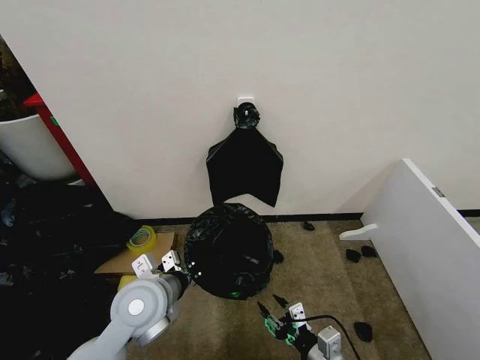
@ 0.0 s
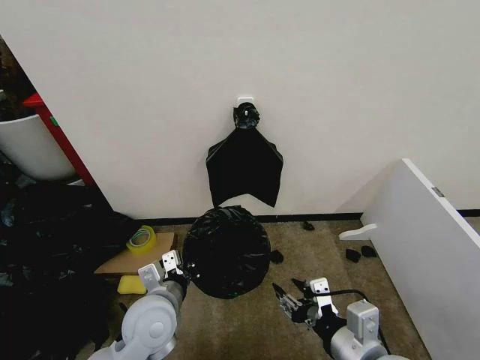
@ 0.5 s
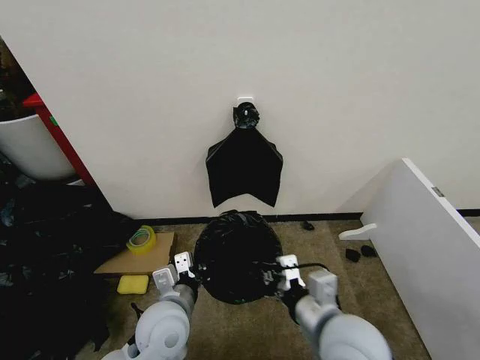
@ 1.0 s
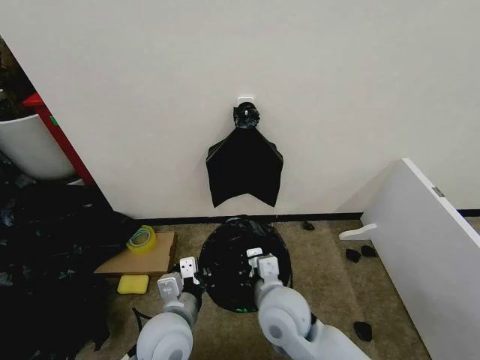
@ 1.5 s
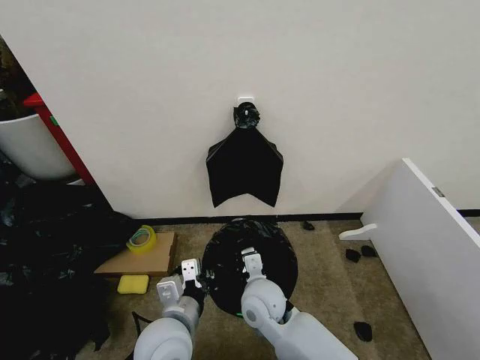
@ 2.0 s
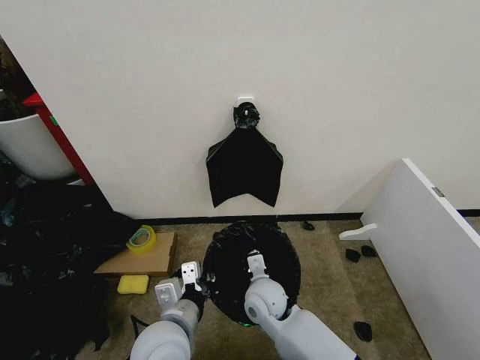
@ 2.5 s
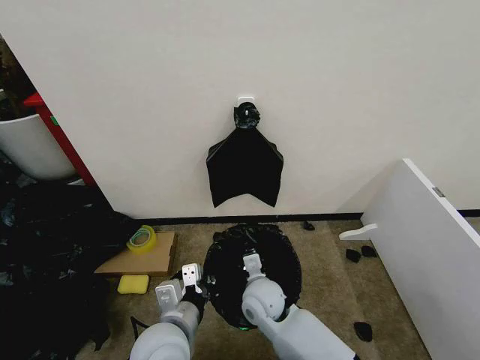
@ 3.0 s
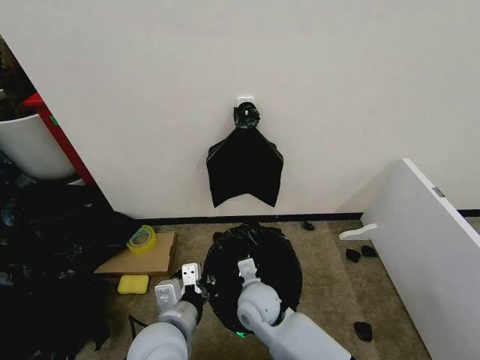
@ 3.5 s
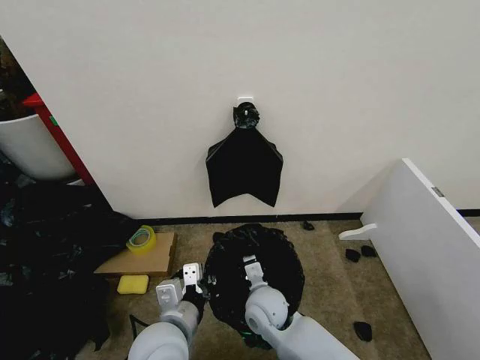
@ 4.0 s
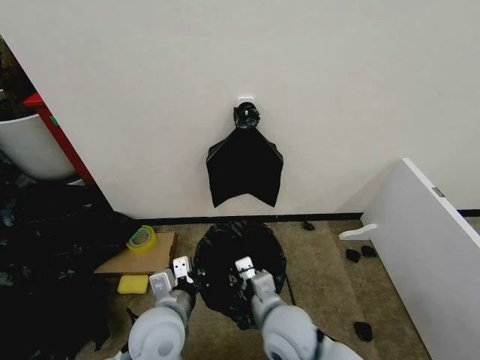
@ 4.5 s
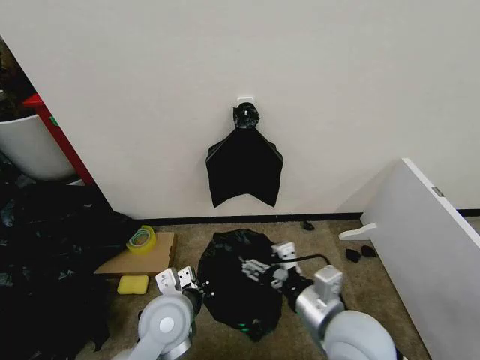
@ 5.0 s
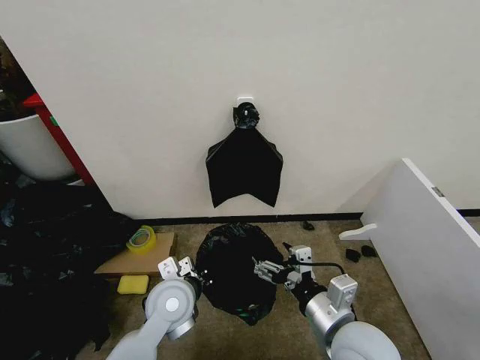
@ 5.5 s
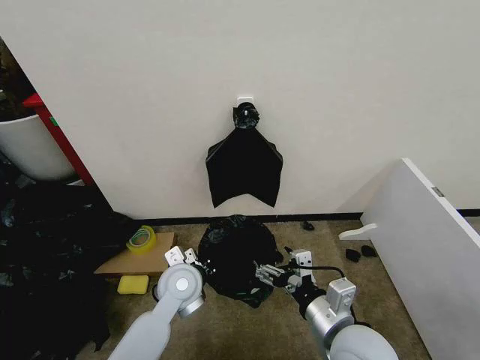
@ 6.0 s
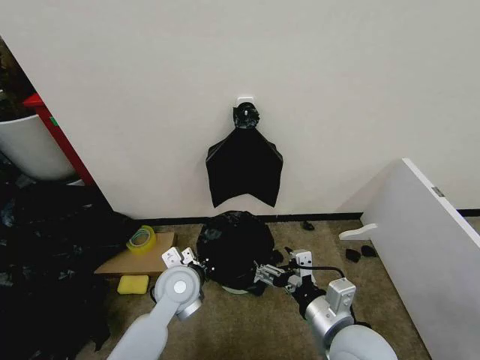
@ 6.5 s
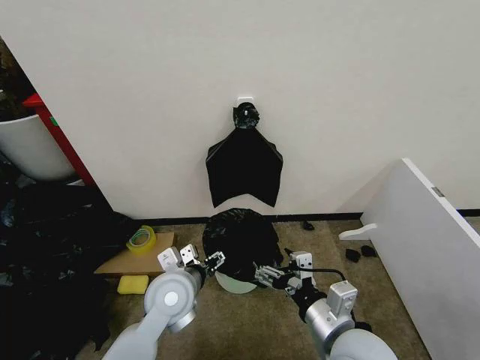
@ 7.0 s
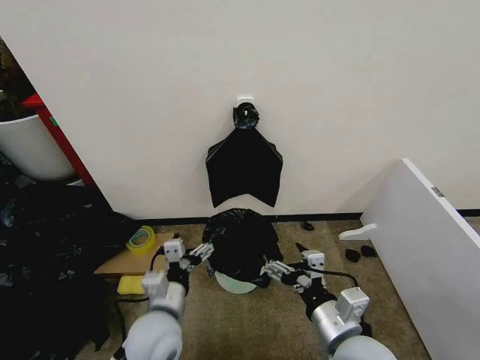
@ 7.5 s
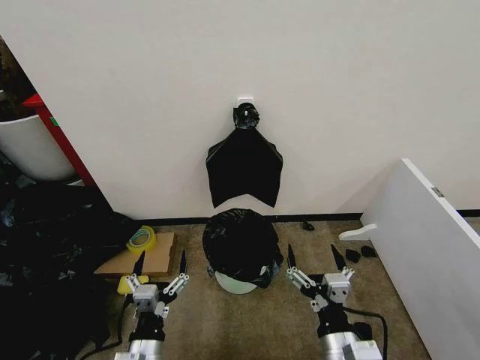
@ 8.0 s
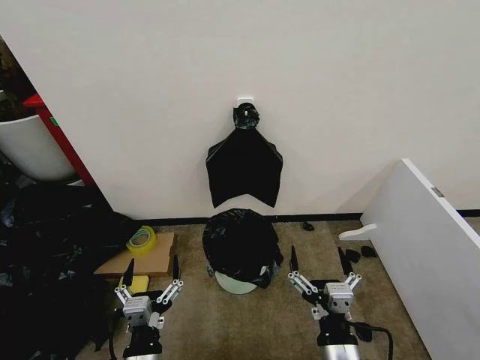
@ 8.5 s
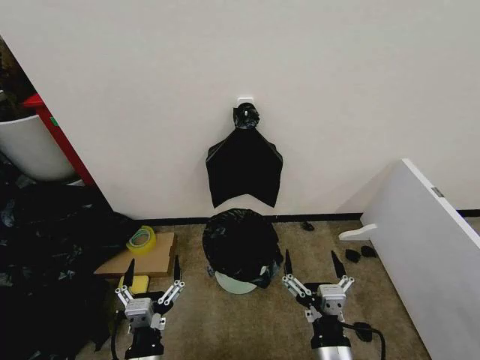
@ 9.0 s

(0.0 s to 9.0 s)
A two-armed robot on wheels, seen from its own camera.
Task of the whole recording: Place the garbage bag over the trash bin.
0.0 s - 2.0 s: The right gripper goes about 25 cm to the left and forward, and closes up, while the left gripper heads backward and to the right, covering roughly 10 cm.
2.0 s - 4.5 s: The right gripper moves backward, about 5 cm.
4.5 s - 7.0 s: The left gripper travels forward by approximately 10 cm, and opens its fingers; the right gripper moves to the right, upward and backward, some 10 cm, and opens its fingers.
7.0 s - 9.0 s: The right gripper heads backward and downward, covering about 10 cm, while the left gripper heads backward, covering approximately 20 cm.

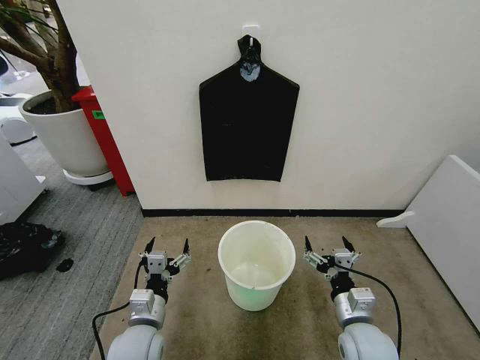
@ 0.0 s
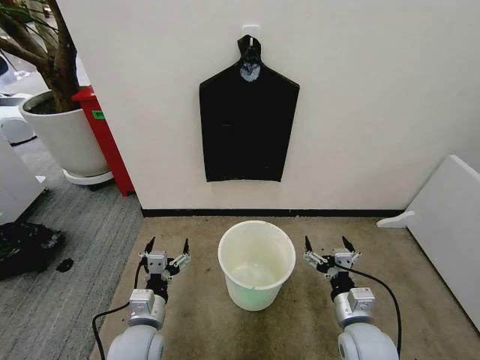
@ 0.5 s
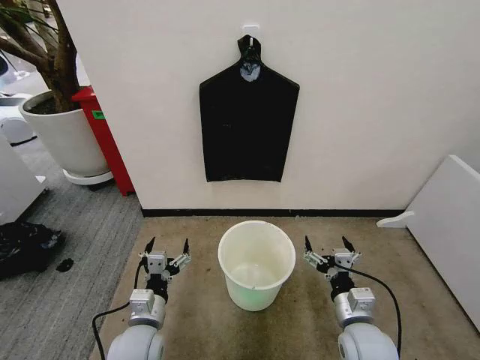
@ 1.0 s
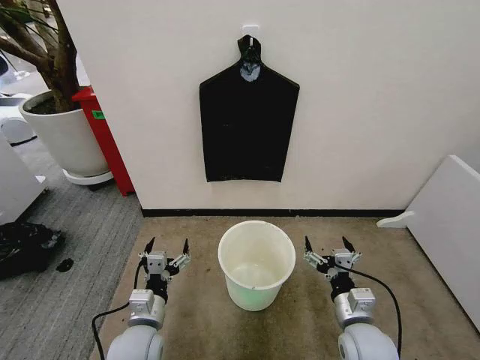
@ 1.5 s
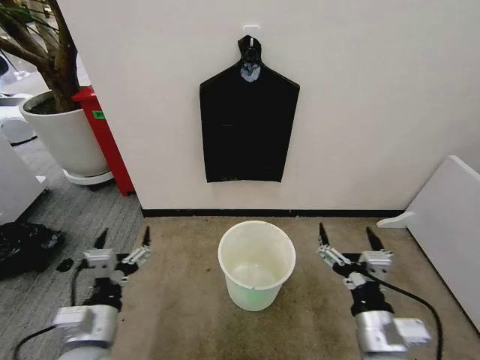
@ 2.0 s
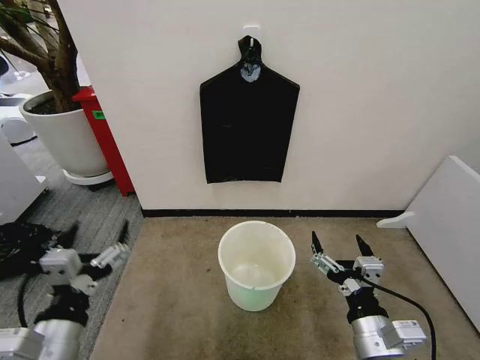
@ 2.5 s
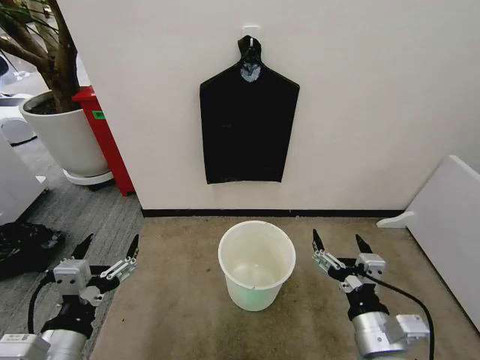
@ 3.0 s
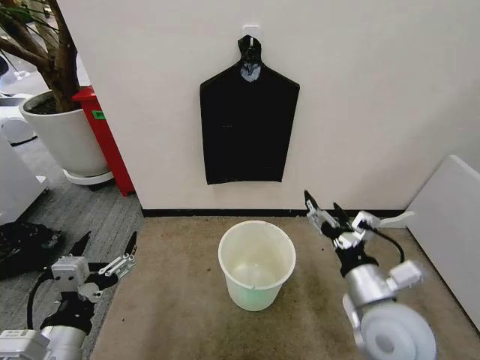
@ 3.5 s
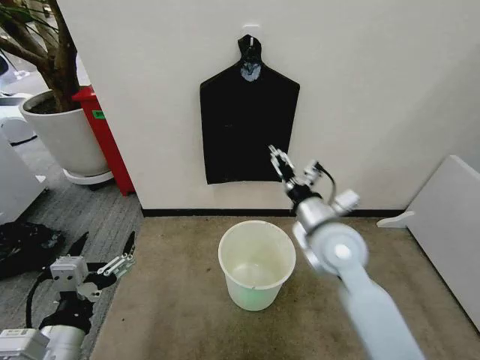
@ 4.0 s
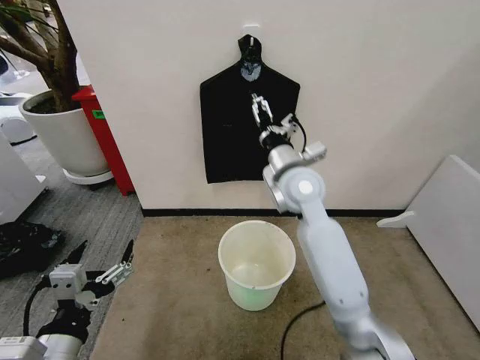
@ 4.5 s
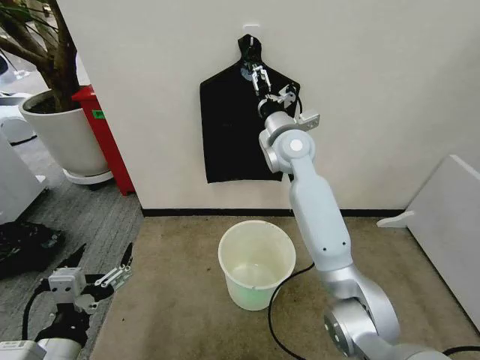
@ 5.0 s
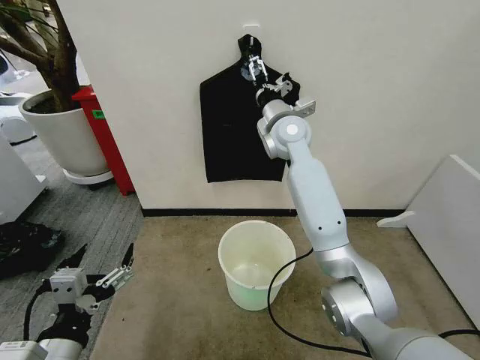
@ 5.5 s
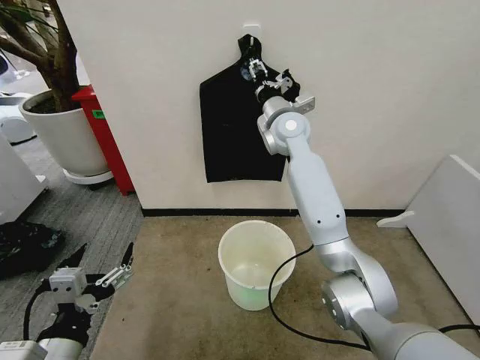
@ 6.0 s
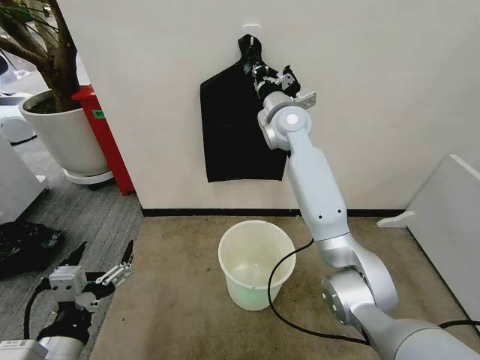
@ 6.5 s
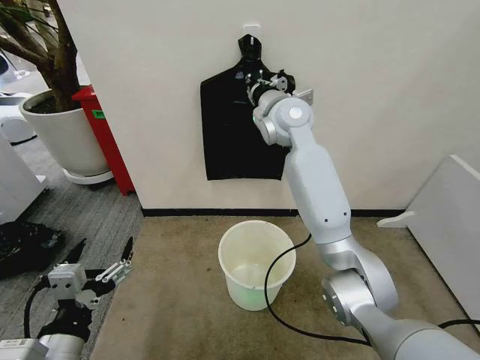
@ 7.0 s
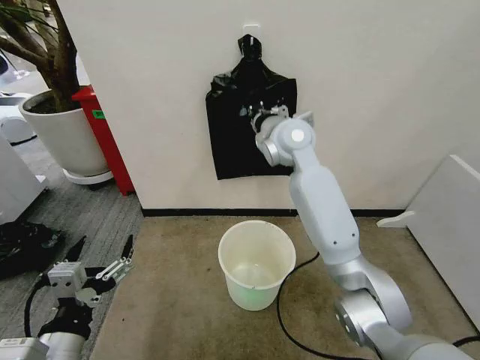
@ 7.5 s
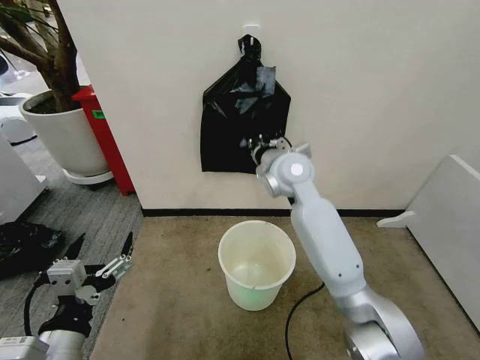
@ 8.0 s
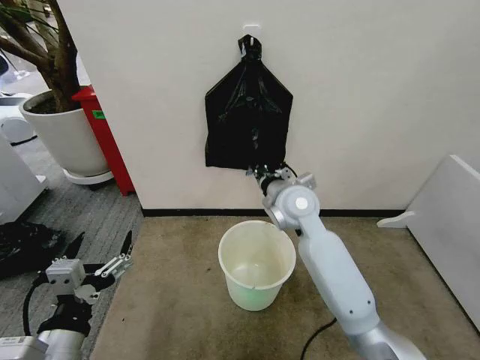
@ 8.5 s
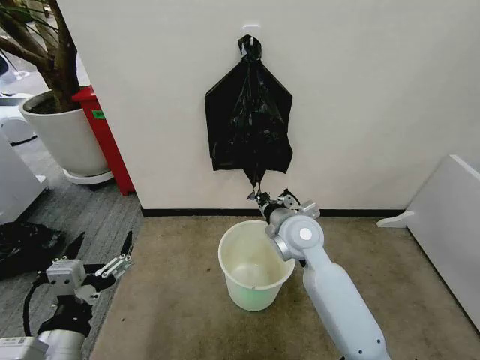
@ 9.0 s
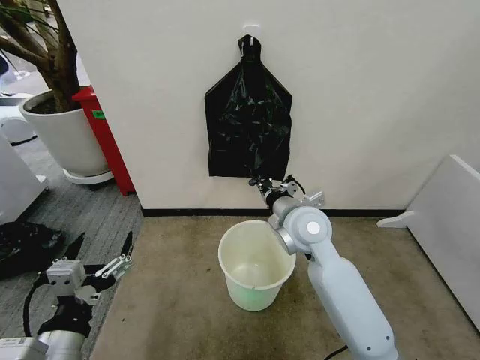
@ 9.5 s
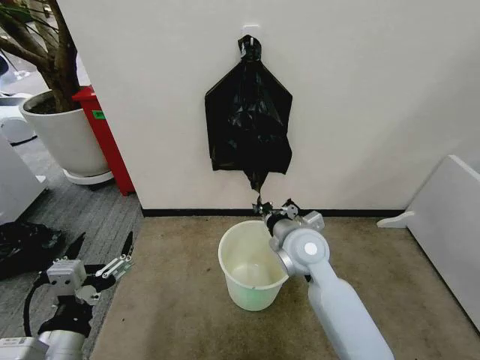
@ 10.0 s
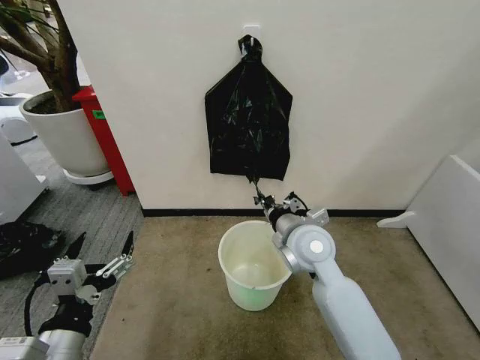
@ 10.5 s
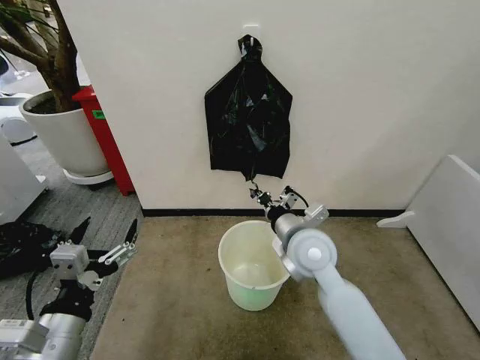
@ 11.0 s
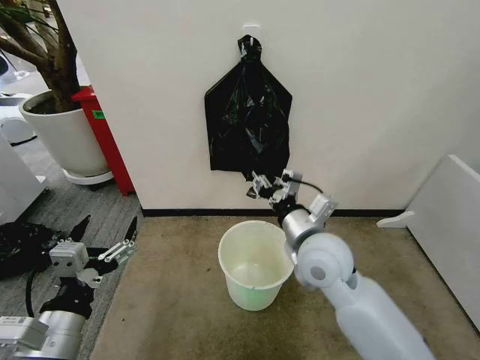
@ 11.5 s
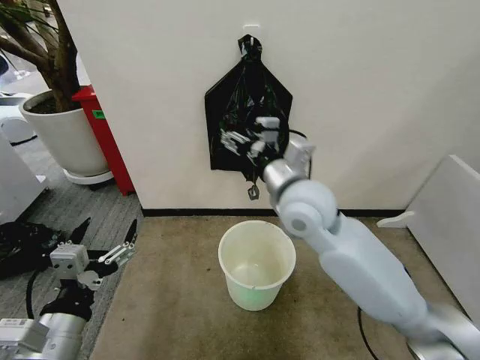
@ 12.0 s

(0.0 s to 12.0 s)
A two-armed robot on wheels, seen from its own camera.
Task of the whole recording: Place the garbage bag over the trash bin.
2.0 s - 4.0 s: The left gripper moves upward, approximately 5 cm. Meanwhile the right gripper travels forward and upward by approximately 20 cm.
4.0 s - 6.0 s: The right gripper heads forward and upward, covering roughly 30 cm, and closes up.
6.0 s - 8.0 s: The right gripper is displaced backward and downward by about 10 cm, and closes its fingers.
8.0 s - 10.0 s: The right gripper moves backward and downward, some 15 cm.
10.0 s - 12.0 s: The right gripper travels upward by about 15 cm, and opens.

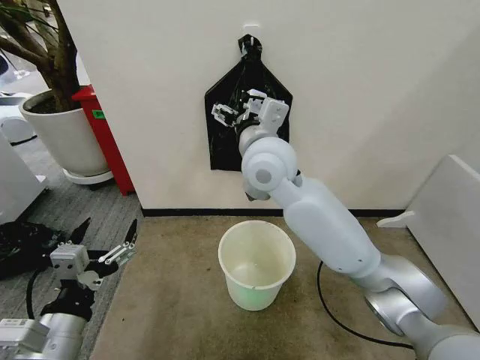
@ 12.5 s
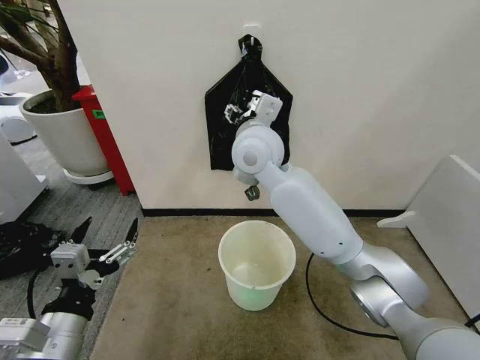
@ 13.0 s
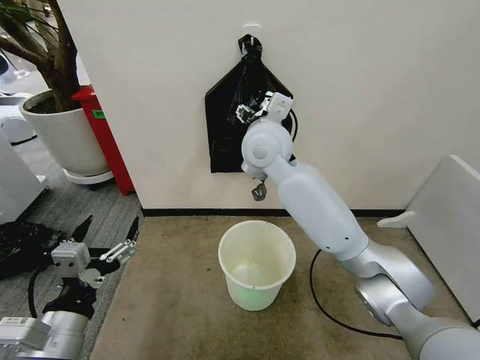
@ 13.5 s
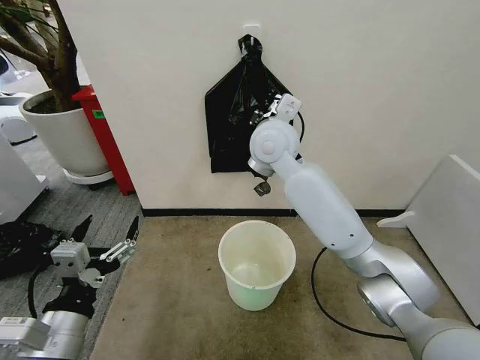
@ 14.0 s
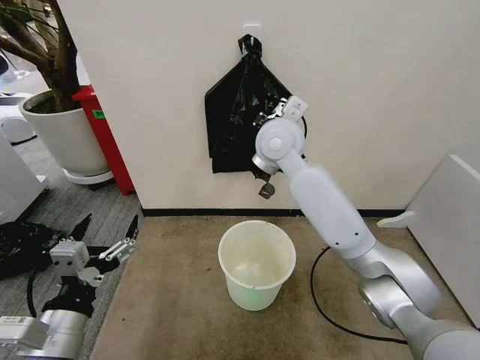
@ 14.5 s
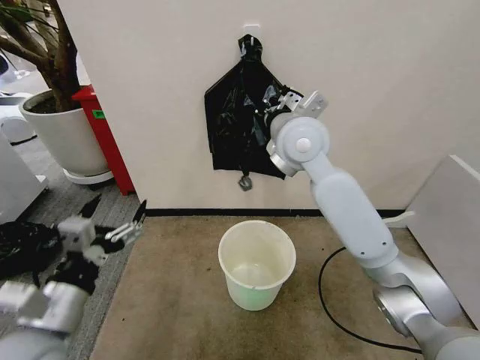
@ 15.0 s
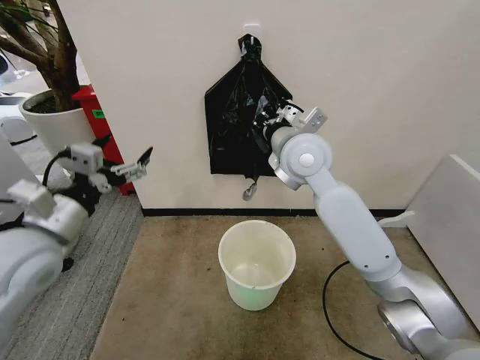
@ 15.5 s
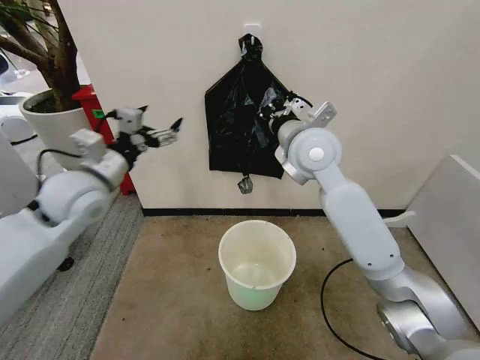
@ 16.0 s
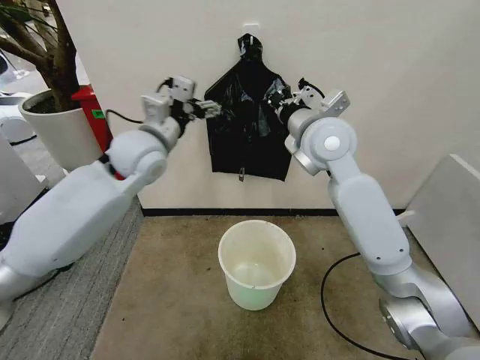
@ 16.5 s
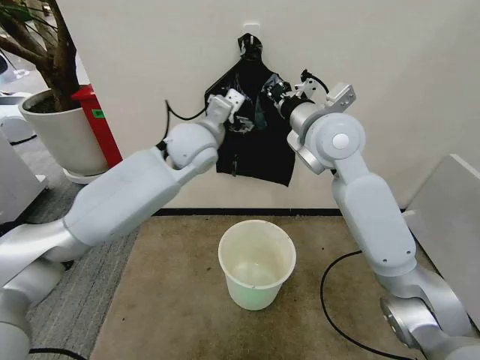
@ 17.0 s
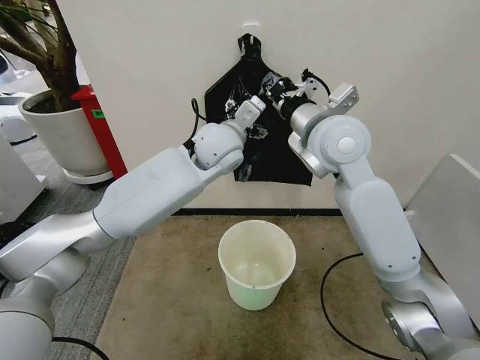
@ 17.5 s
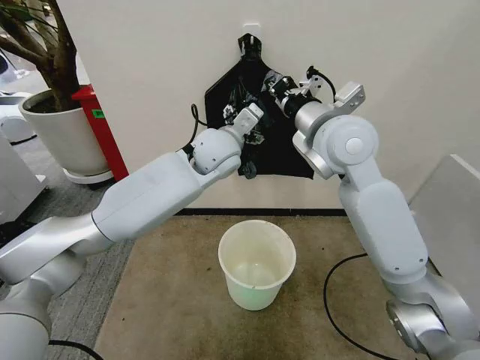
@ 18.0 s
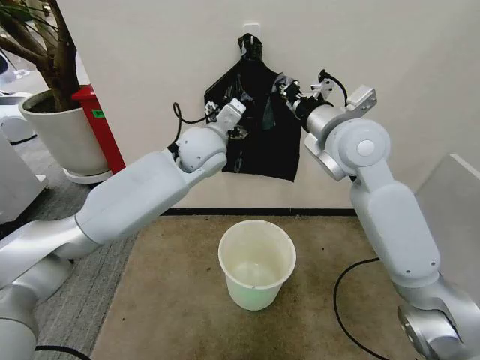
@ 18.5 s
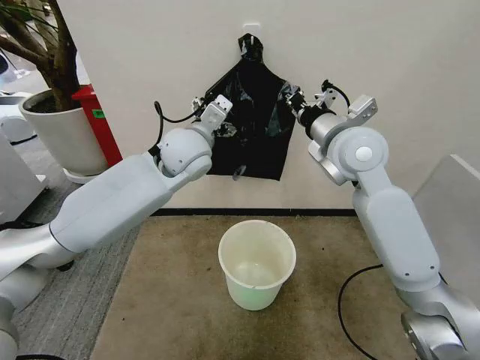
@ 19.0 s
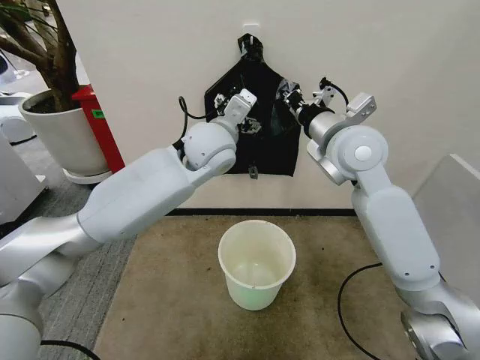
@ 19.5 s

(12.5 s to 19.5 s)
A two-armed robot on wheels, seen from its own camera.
Task of the whole recording: Place the garbage bag over the trash bin.
12.5 s - 14.5 s: The right gripper goes some 5 cm forward, and closes its fingers.
14.5 s - 16.0 s: The left gripper heads forward and upward, covering roughly 30 cm. Meanwhile the right gripper is displaced to the right by about 5 cm.
16.0 s - 17.5 s: The left gripper moves to the right and forward, approximately 25 cm.
